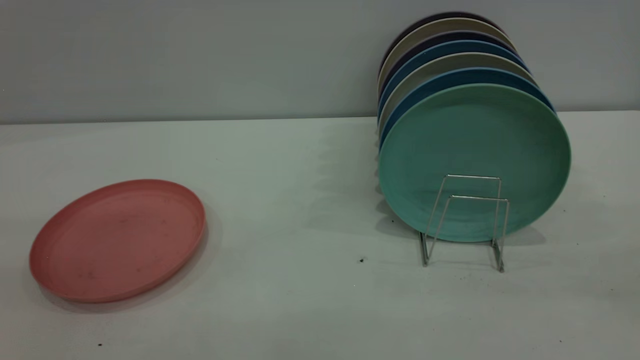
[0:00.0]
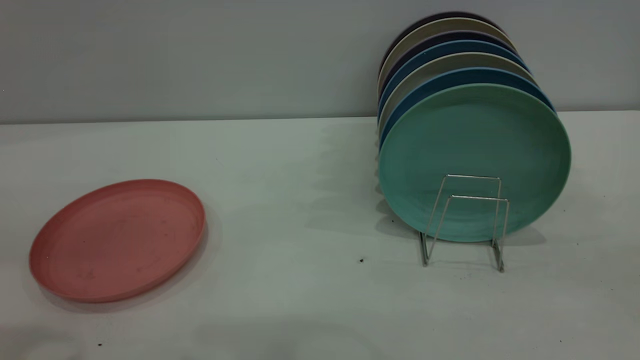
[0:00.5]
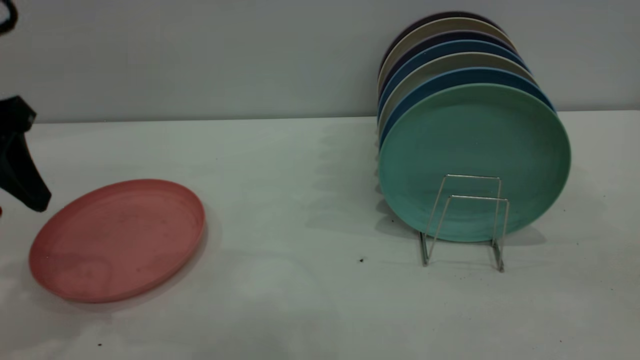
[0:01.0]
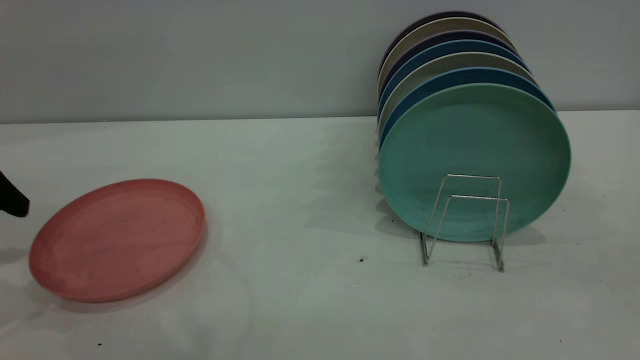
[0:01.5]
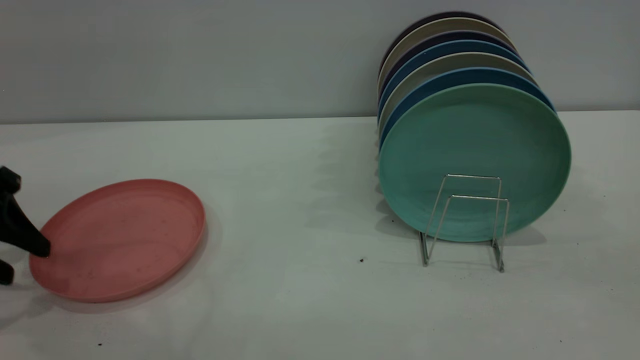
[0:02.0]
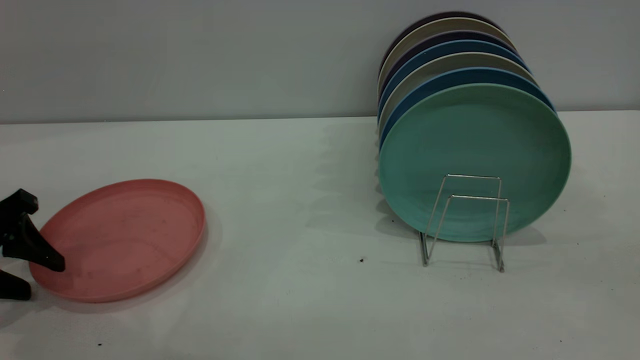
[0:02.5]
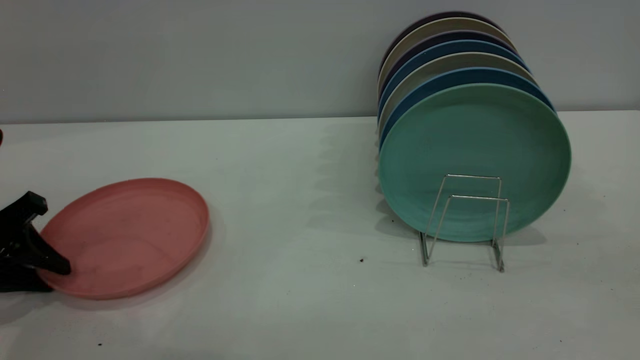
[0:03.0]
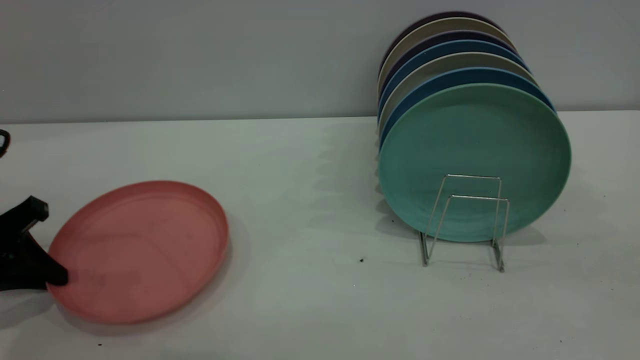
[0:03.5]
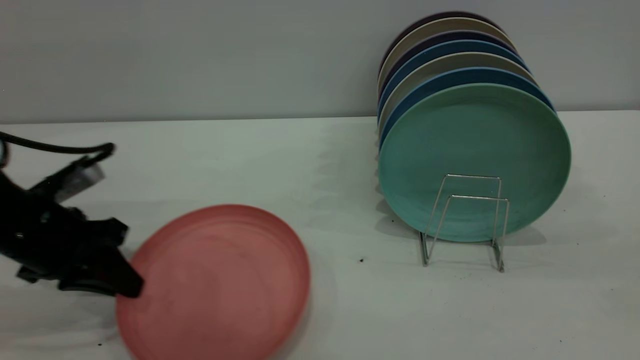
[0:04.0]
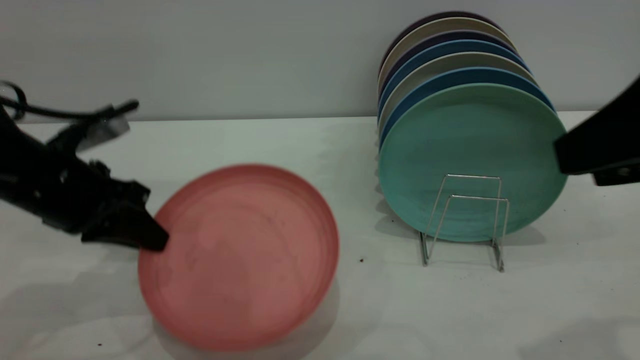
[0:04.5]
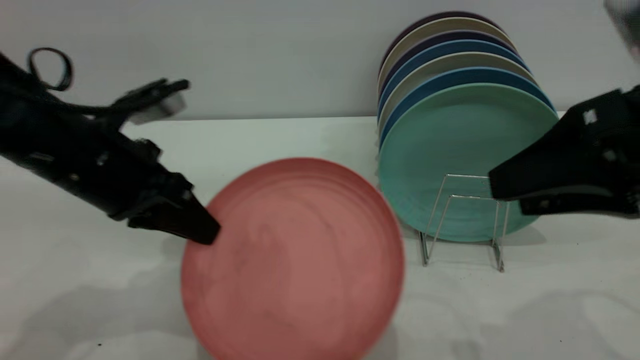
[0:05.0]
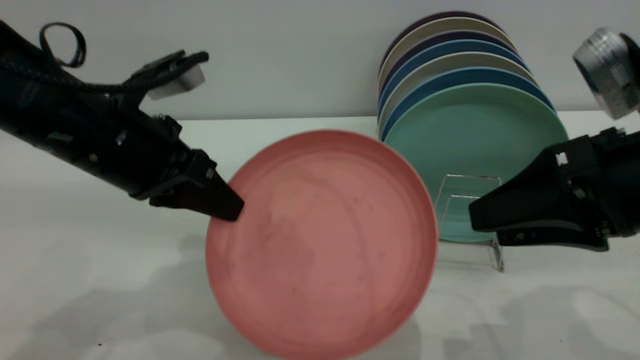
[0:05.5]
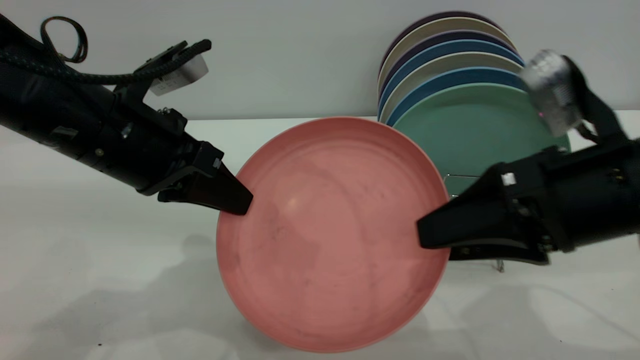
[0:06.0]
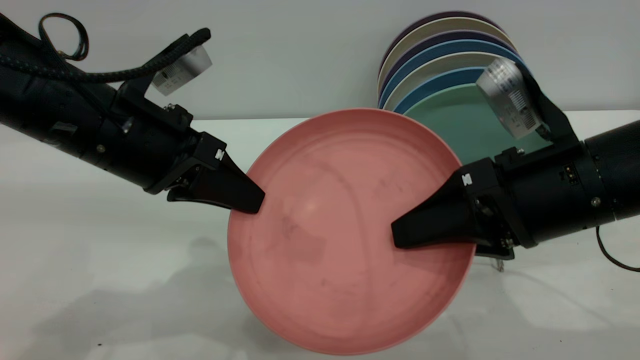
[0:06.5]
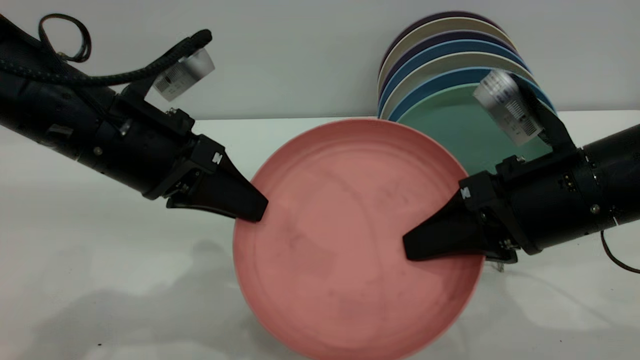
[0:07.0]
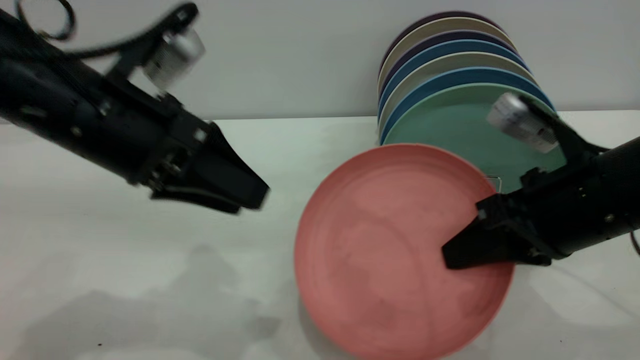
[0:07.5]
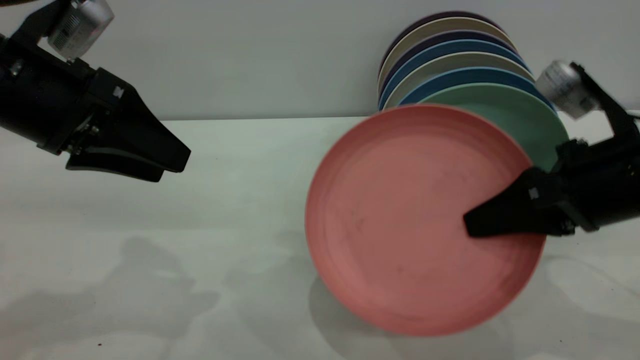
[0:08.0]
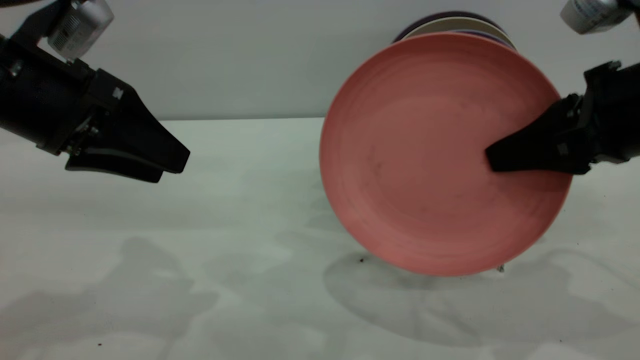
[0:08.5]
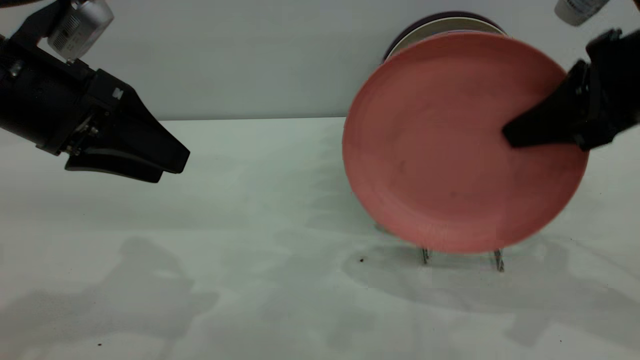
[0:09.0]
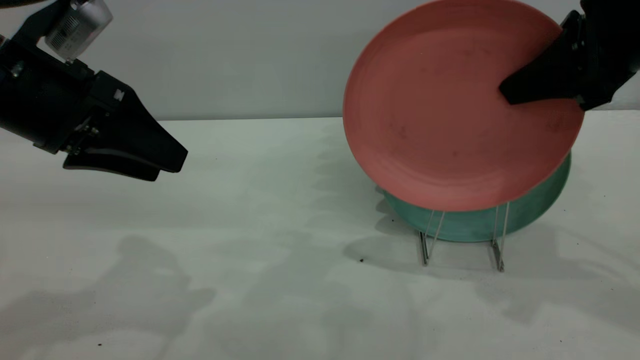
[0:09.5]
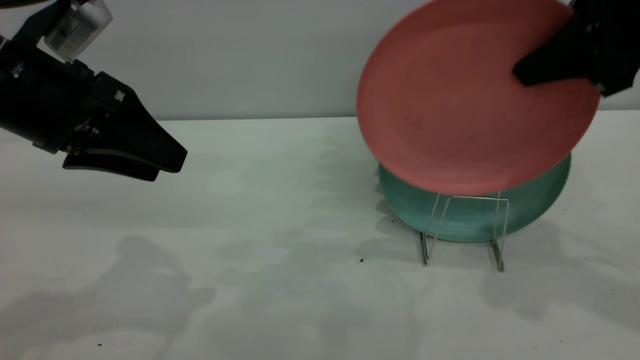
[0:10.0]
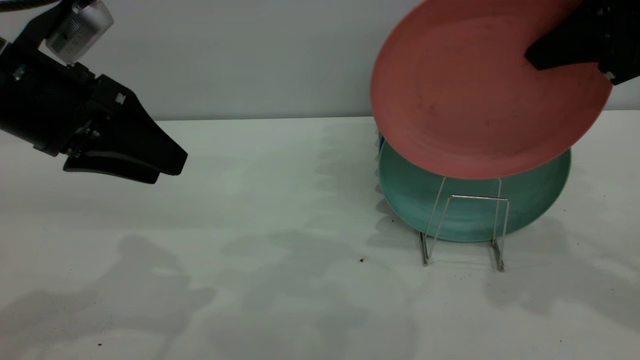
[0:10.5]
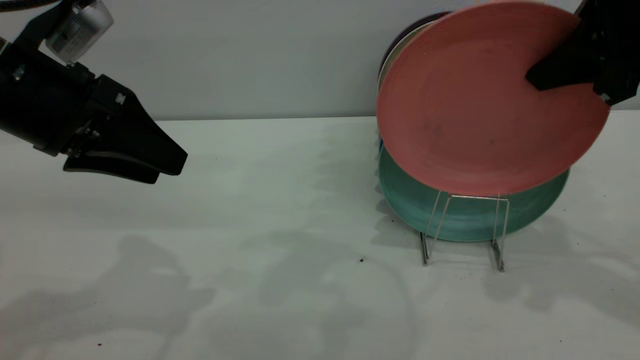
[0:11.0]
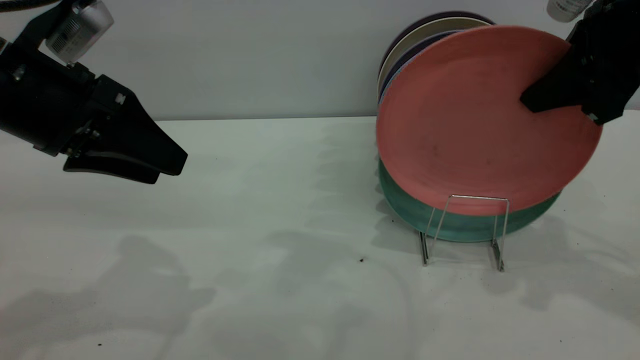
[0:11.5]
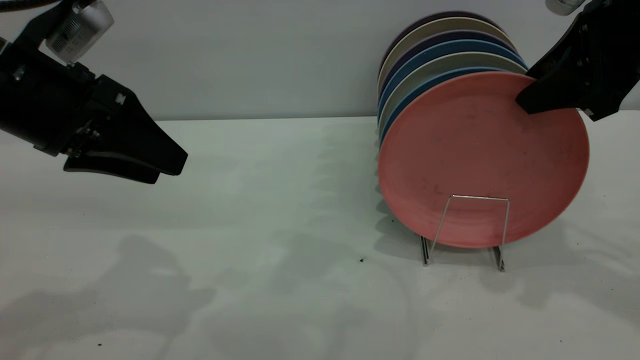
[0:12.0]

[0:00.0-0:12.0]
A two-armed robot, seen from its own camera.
Task of the whole recording: put the plate on the plate rack.
Step, 0:00.0 to 0:04.0: Pick up the plate with the left gripper.
Step, 0:04.5 to 0:07.0: Pass the plate from the left gripper to the right gripper.
0:00.0 to 0:02.0: The left gripper goes some 30 cm downward, forward and to the left.
0:02.0 to 0:04.0: The left gripper is displaced to the right by about 10 cm, and closes up.
0:04.0 to 0:06.0: The right gripper shifts approximately 20 cm downward and forward. The left gripper shifts about 15 cm to the right and upward.
0:06.0 to 0:08.0: The left gripper is displaced to the left by some 5 cm, and opens its fingers; the right gripper ends up roughly 5 cm from where it was, and closes its fingers.
0:08.0 to 0:10.0: The right gripper goes about 15 cm upward.
0:10.0 to 0:12.0: The right gripper opens up.

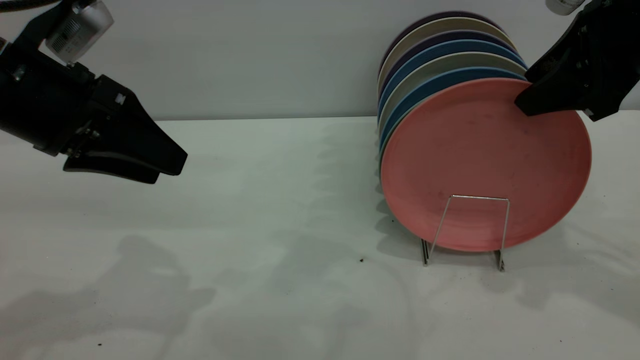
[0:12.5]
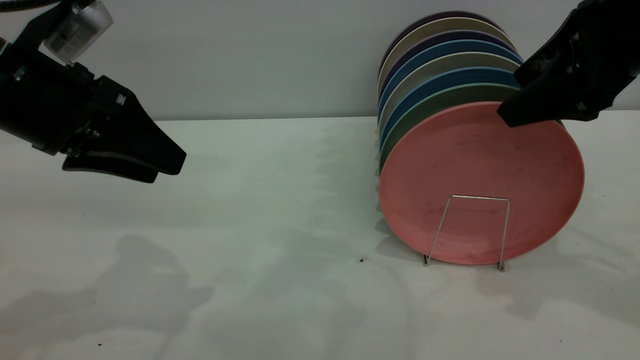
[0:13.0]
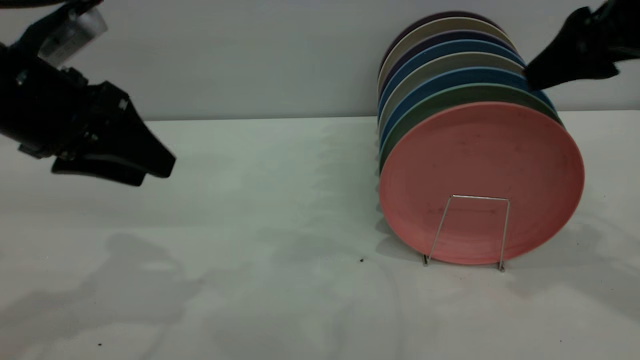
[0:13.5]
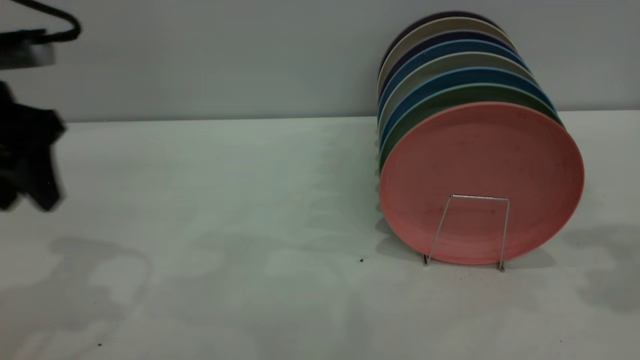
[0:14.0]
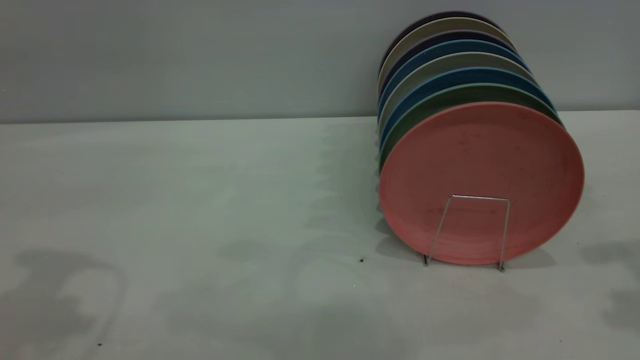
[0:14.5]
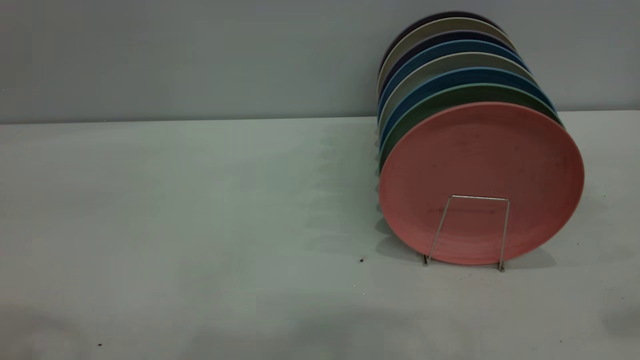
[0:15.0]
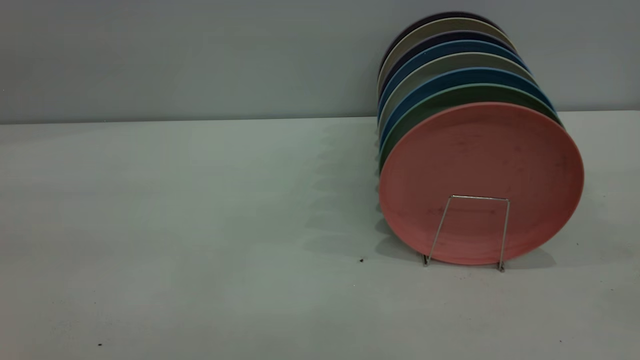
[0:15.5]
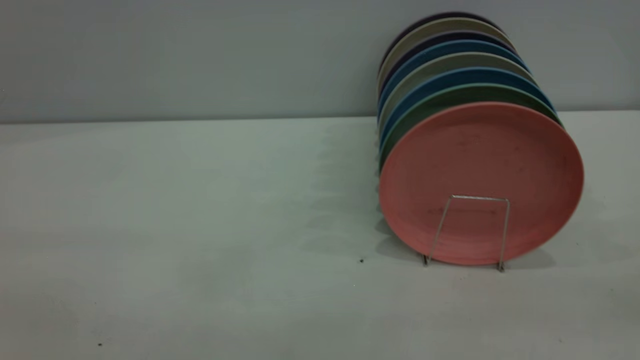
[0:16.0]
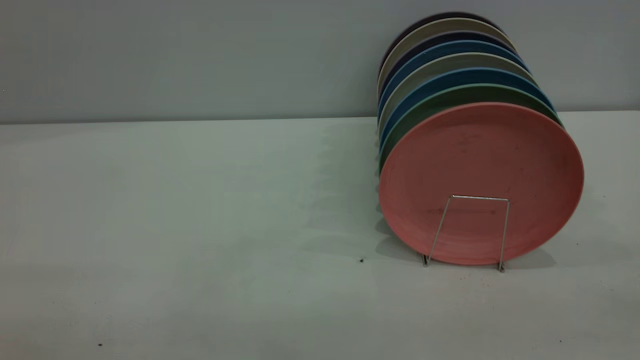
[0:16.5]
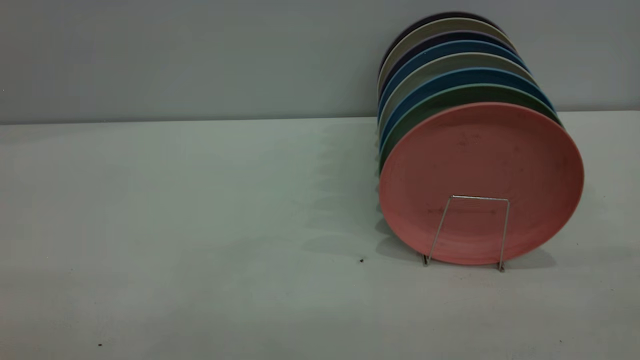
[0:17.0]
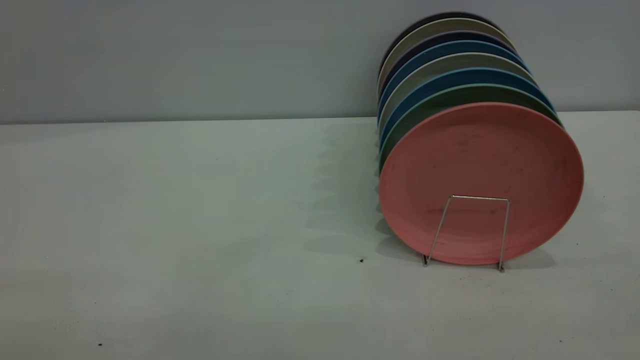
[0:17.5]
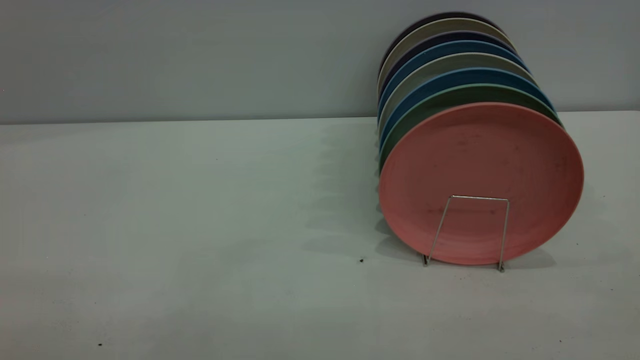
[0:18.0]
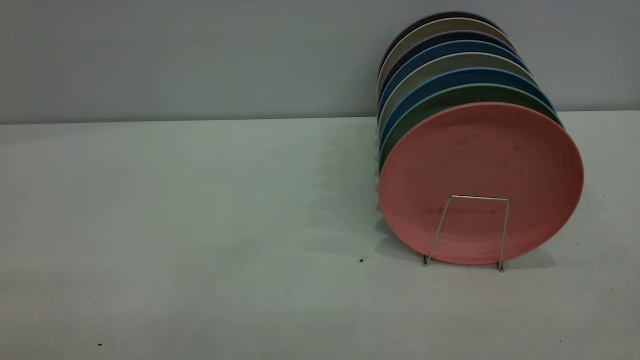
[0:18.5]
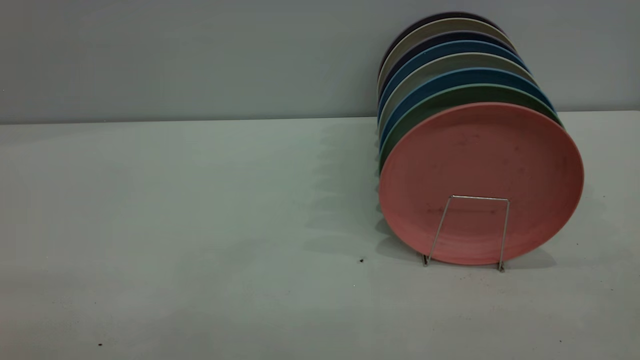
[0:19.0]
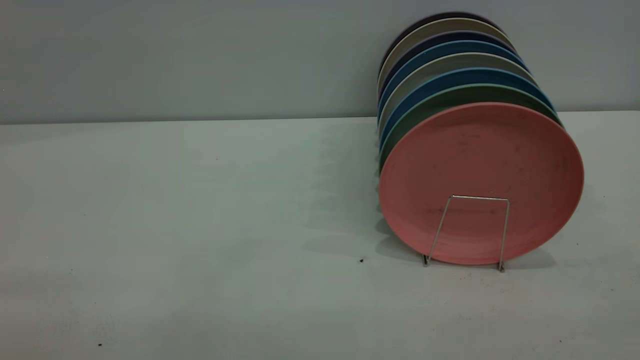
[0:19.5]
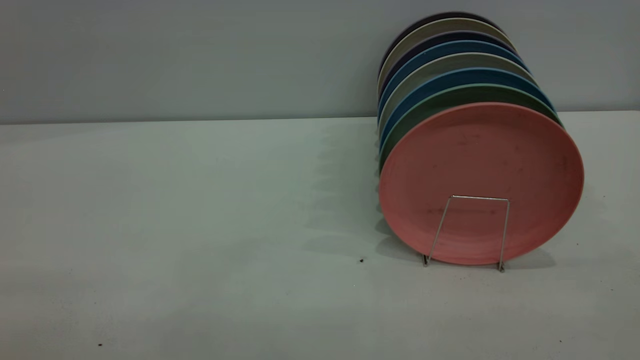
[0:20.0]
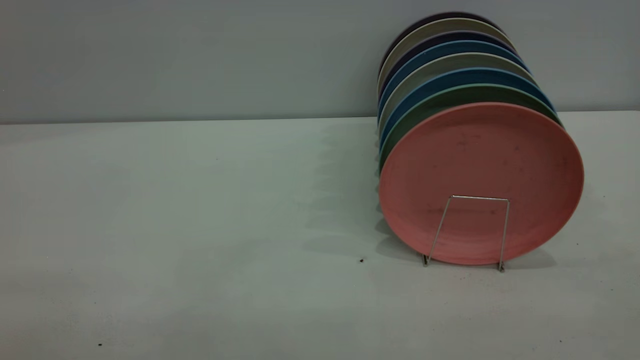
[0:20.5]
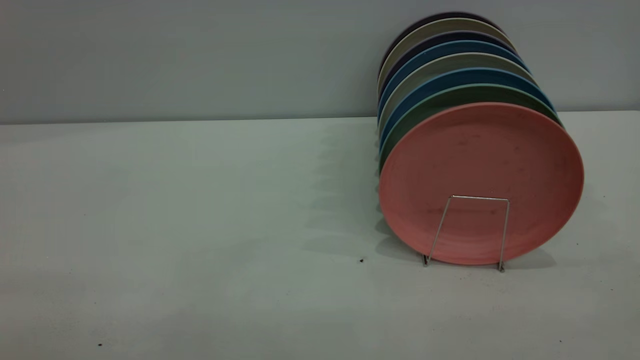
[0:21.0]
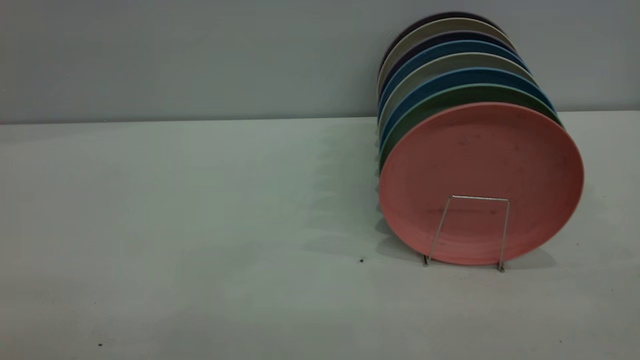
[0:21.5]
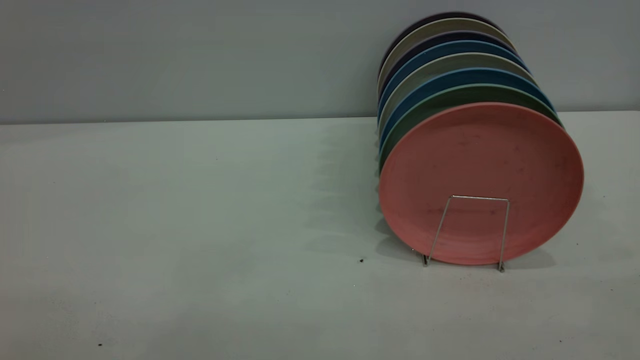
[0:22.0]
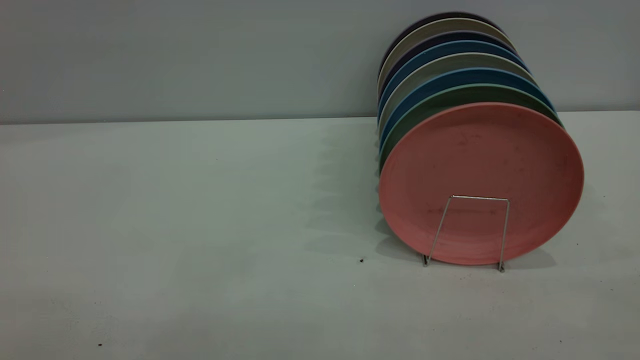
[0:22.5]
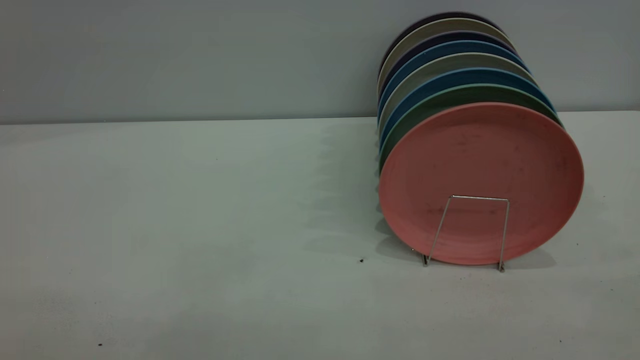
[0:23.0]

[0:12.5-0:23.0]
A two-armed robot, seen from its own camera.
Task of the whole recording: put the plate on the plate rack.
0:12.5 to 0:14.5: The right gripper is displaced to the right and upward by roughly 10 cm, and opens, while the left gripper moves upward and to the left, some 10 cm.
